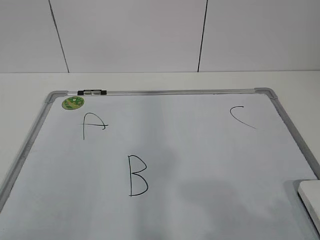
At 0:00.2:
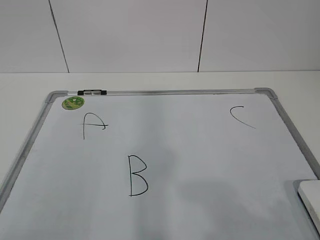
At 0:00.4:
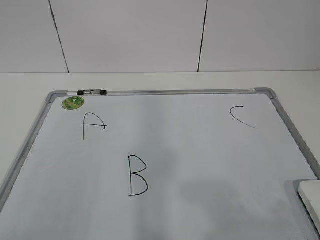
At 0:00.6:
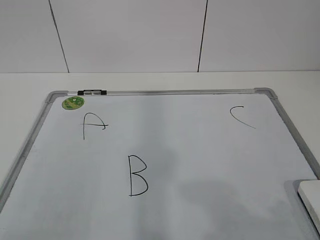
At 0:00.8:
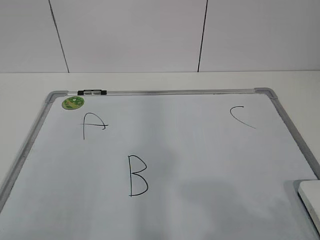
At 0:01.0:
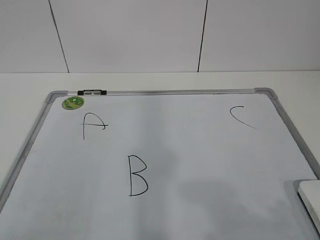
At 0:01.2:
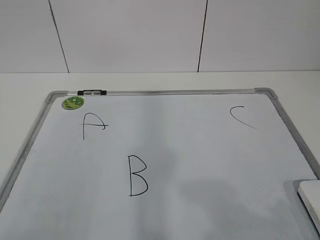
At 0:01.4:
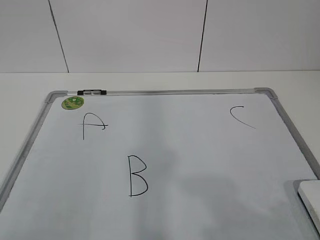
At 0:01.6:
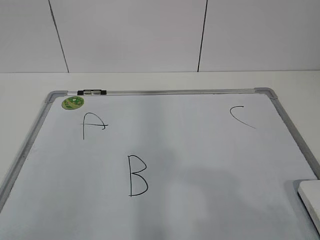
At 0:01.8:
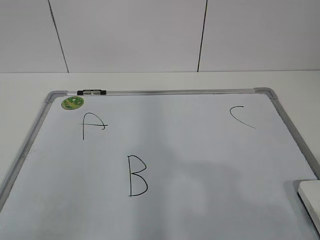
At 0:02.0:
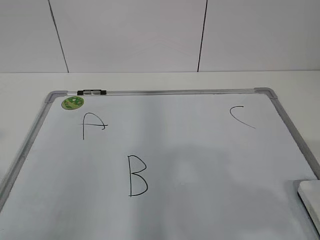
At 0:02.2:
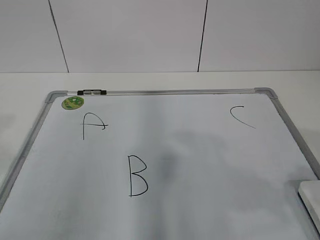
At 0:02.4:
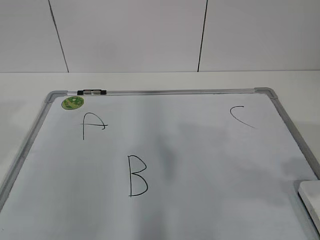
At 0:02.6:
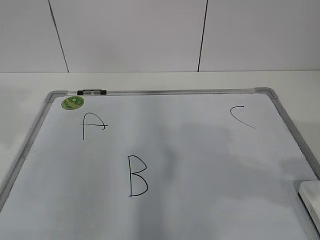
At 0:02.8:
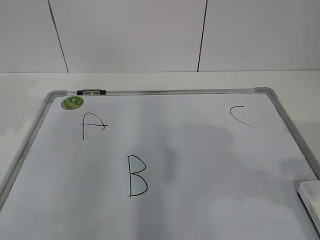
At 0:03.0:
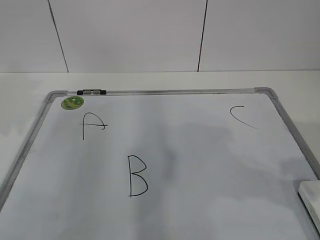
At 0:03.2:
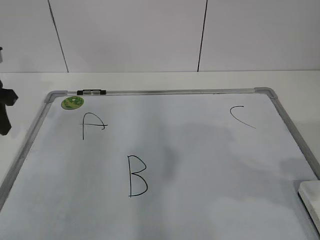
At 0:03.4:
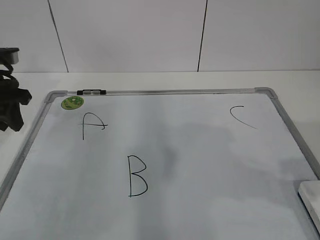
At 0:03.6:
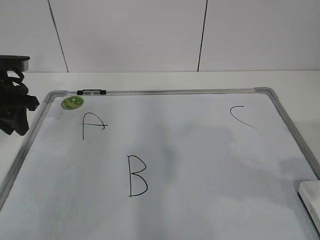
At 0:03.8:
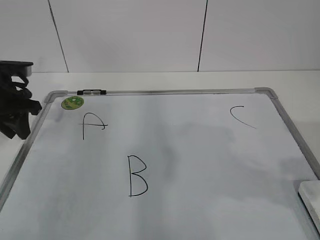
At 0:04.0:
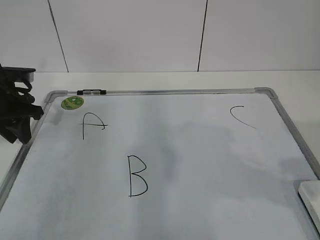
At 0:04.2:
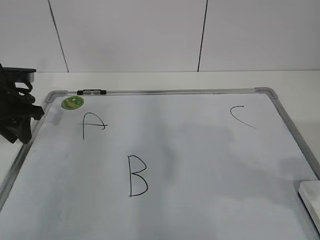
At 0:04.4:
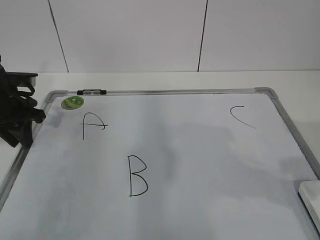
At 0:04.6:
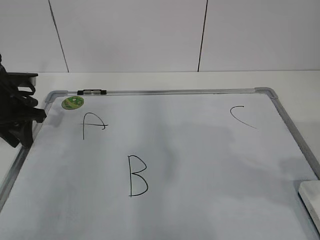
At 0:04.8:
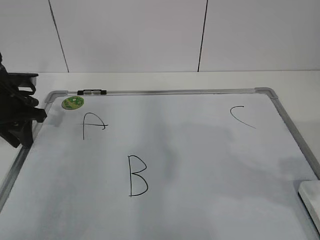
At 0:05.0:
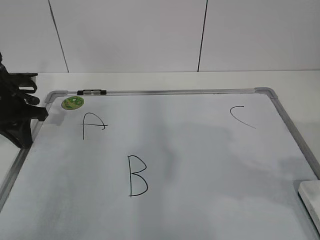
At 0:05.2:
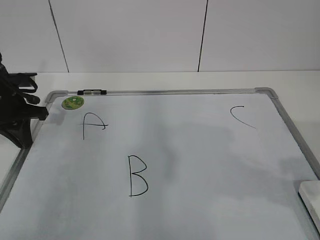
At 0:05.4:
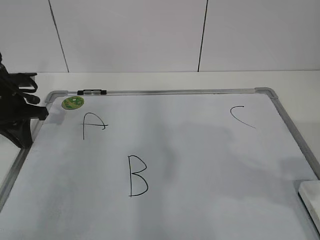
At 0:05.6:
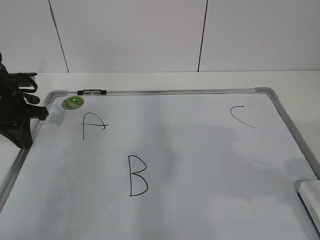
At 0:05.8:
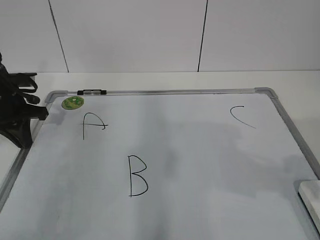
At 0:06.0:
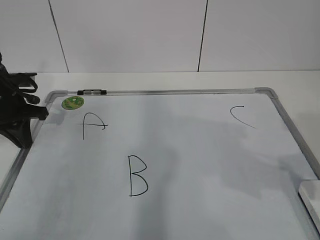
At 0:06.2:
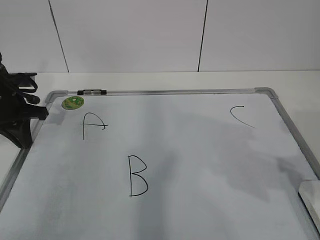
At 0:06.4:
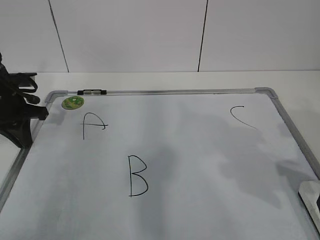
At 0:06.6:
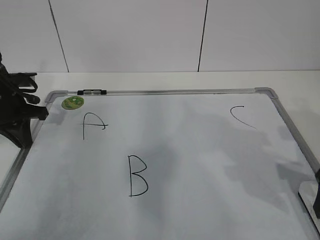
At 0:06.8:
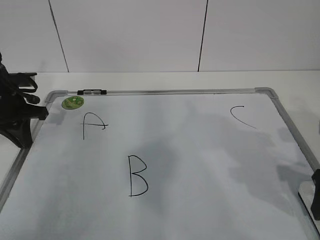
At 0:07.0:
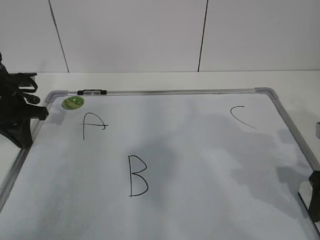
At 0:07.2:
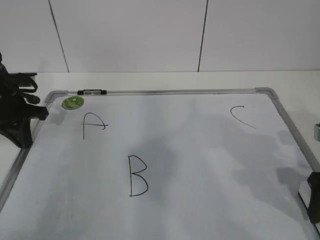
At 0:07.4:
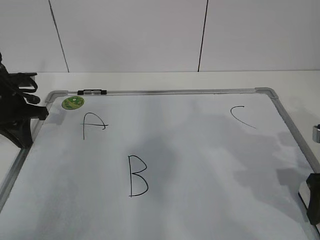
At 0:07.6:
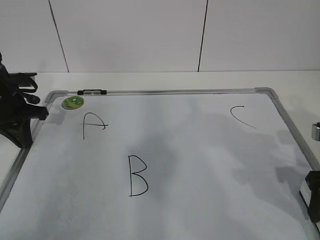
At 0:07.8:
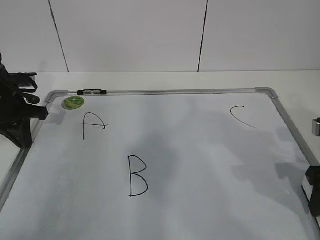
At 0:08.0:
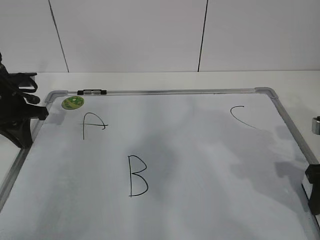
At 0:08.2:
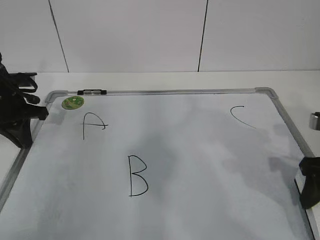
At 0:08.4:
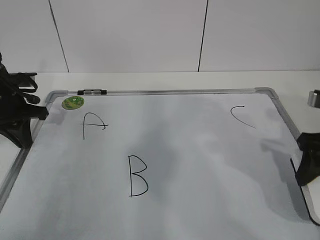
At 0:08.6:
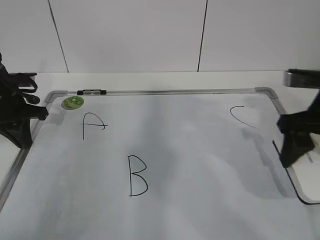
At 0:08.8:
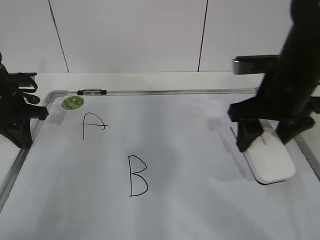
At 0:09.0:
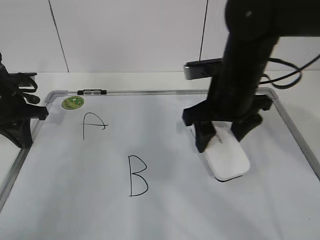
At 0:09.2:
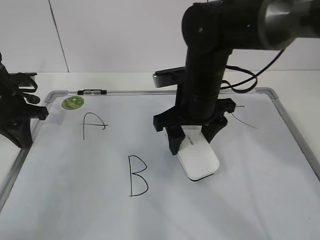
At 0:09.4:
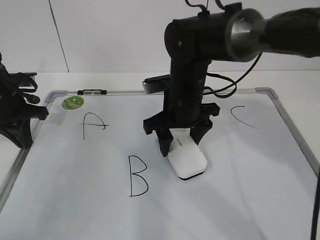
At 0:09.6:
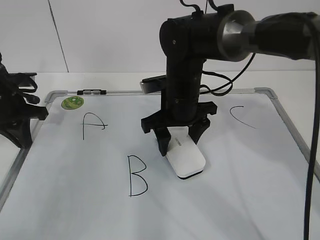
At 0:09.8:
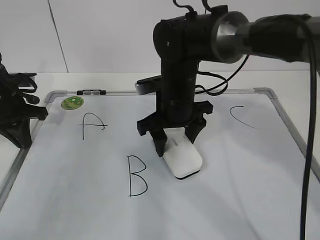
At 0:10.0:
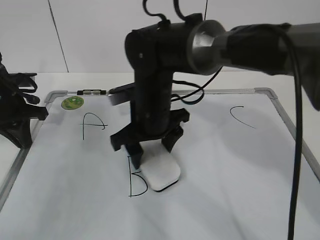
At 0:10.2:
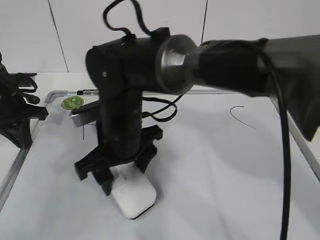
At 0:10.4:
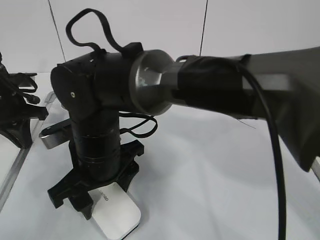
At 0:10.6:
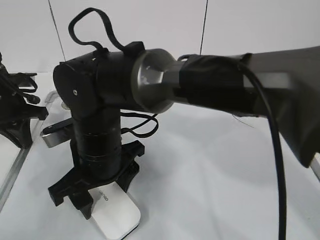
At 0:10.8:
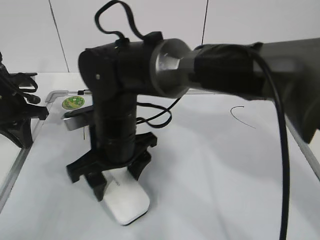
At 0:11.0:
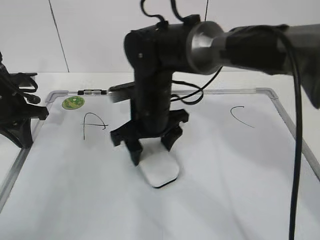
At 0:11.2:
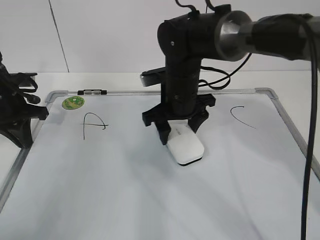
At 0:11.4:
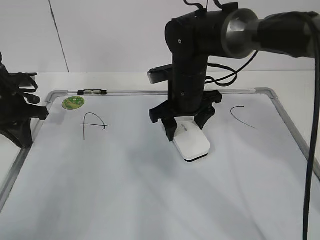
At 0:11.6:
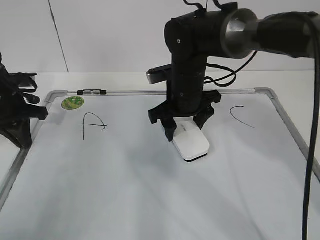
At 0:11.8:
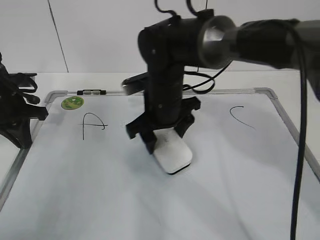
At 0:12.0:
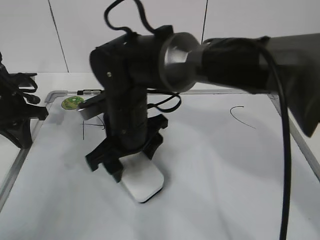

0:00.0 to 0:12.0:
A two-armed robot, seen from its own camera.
Task of the whole recording: pick up the eraser on the blackboard and erase the letter "B".
Step, 0:00.0 to 0:04.0: Hold the drawing board steady with your left hand.
Step, 0:04.2 to 0:06.0: Grab the eraser with your right hand.
Step, 0:06.4 to 0:10.2: Erase the letter B with your right hand.
0:01.6 to 0:03.0: The left gripper is displaced forward by some 30 cm.
0:03.0 to 0:04.4: The left gripper moves downward and forward, some 10 cm.
0:04.4 to 0:06.0: The left gripper closes.
0:06.0 to 0:07.6: The right gripper travels downward and forward by roughly 10 cm, and closes.
0:07.6 to 0:09.0: The right gripper goes about 20 cm to the left and forward, and closes up.
0:09.0 to 0:10.4: The right gripper goes some 20 cm to the left.
0:10.4 to 0:12.0: The right gripper reaches roughly 15 cm to the right, then returns.

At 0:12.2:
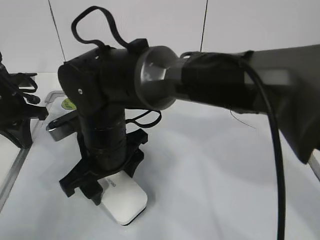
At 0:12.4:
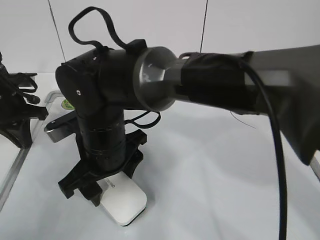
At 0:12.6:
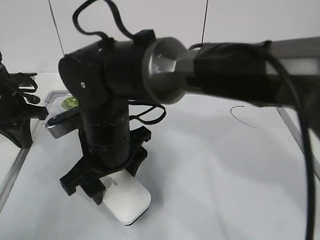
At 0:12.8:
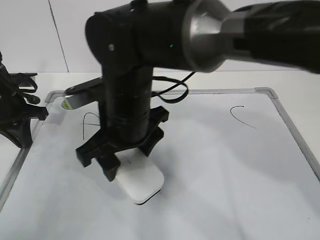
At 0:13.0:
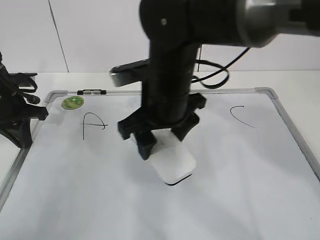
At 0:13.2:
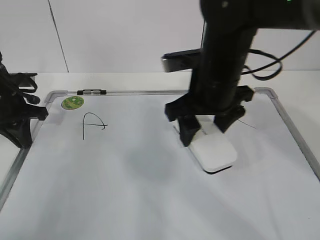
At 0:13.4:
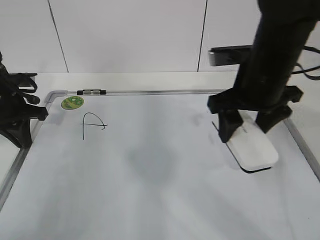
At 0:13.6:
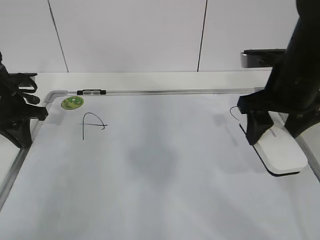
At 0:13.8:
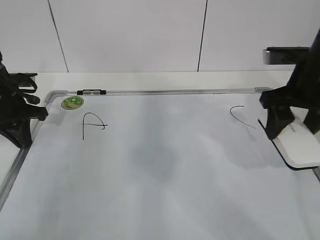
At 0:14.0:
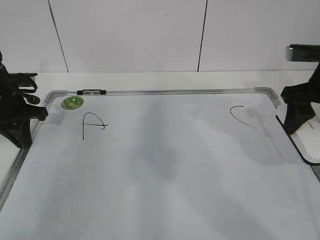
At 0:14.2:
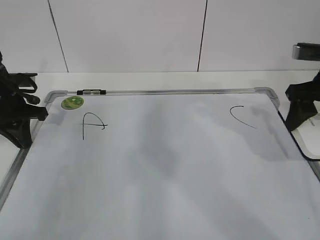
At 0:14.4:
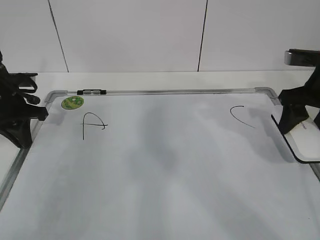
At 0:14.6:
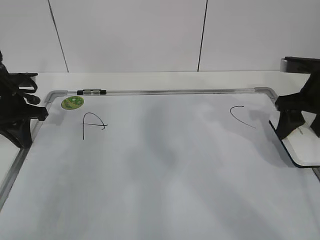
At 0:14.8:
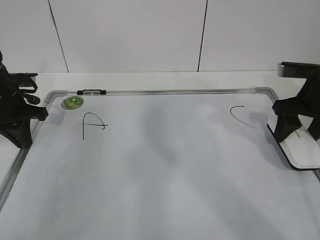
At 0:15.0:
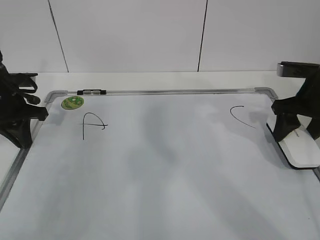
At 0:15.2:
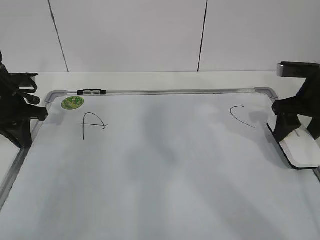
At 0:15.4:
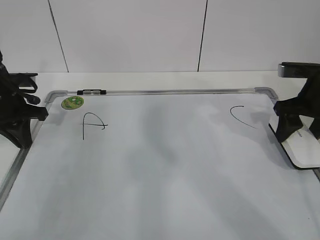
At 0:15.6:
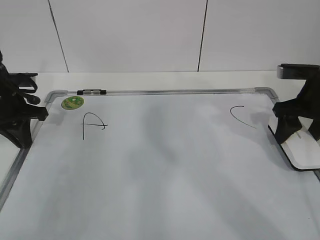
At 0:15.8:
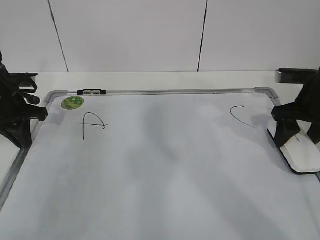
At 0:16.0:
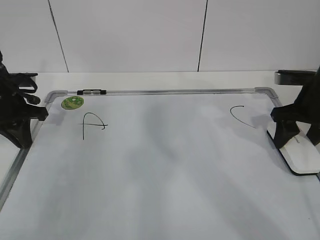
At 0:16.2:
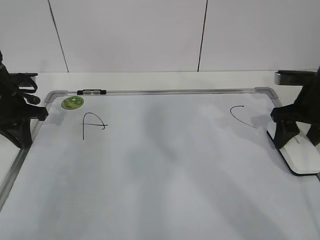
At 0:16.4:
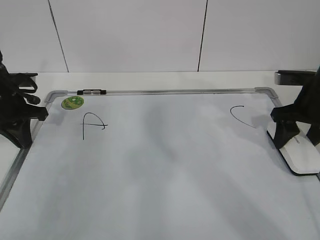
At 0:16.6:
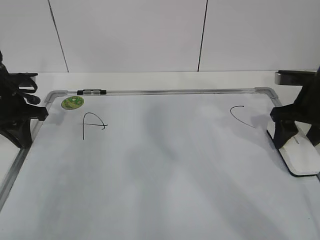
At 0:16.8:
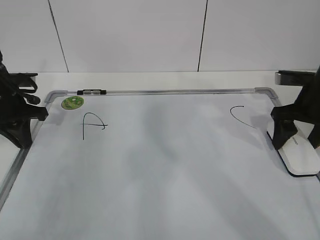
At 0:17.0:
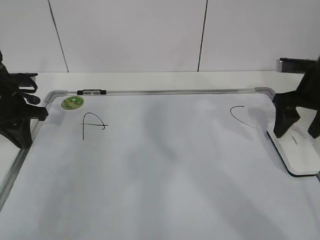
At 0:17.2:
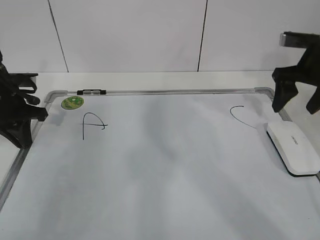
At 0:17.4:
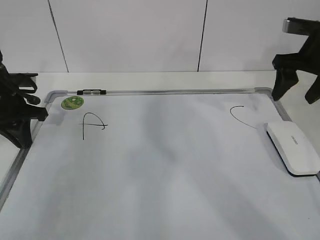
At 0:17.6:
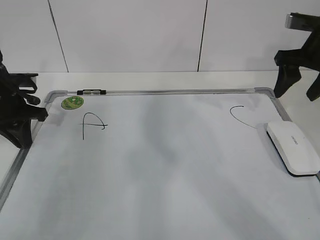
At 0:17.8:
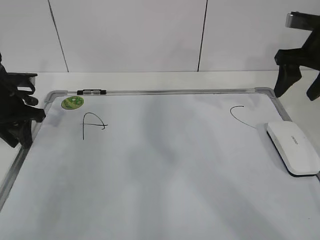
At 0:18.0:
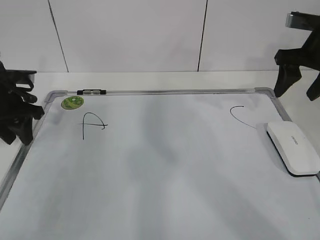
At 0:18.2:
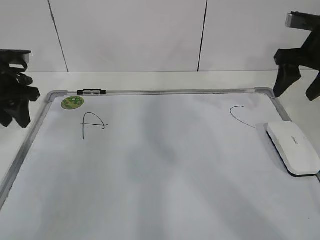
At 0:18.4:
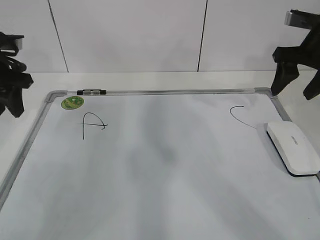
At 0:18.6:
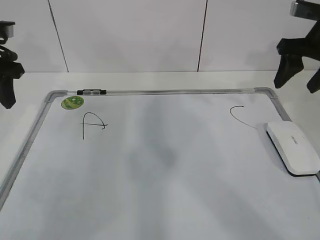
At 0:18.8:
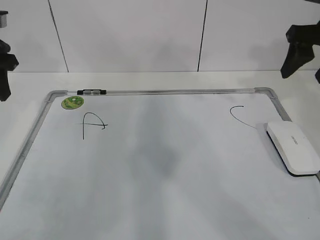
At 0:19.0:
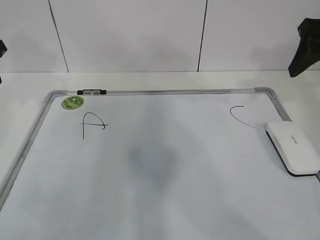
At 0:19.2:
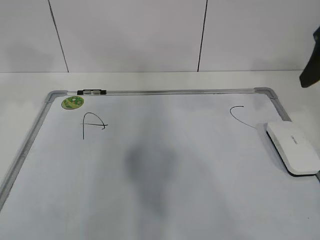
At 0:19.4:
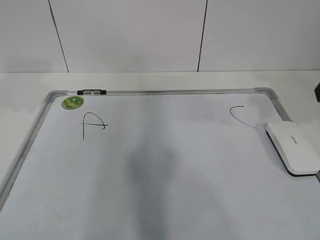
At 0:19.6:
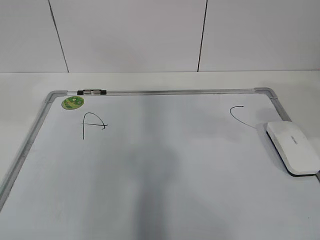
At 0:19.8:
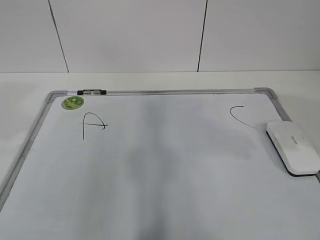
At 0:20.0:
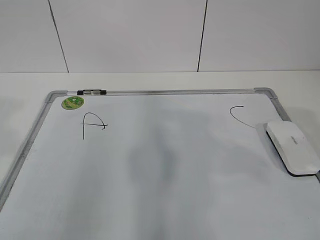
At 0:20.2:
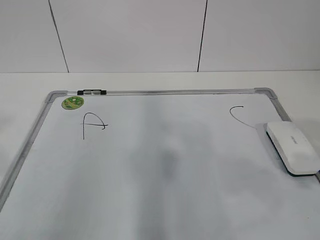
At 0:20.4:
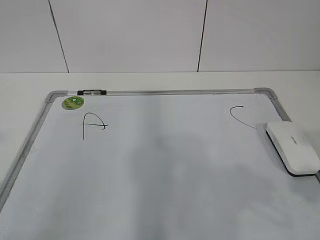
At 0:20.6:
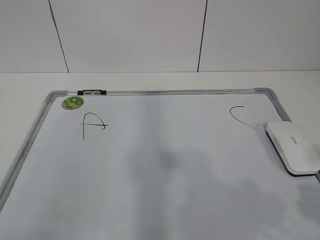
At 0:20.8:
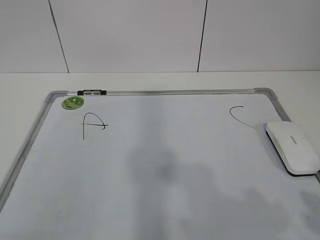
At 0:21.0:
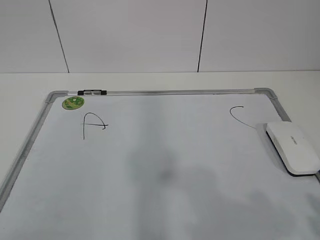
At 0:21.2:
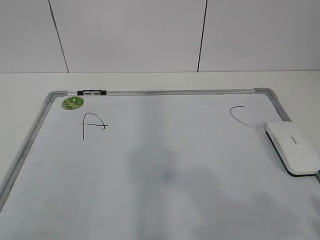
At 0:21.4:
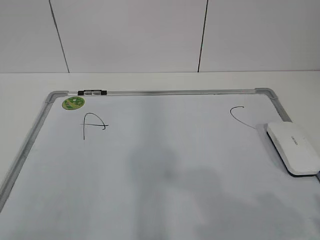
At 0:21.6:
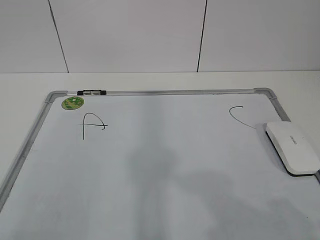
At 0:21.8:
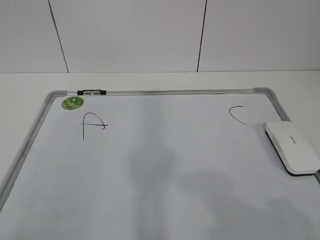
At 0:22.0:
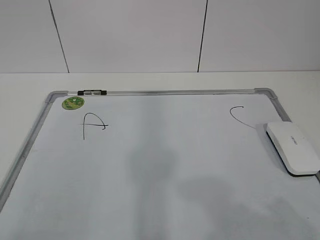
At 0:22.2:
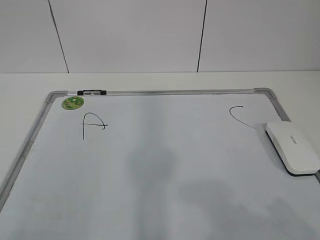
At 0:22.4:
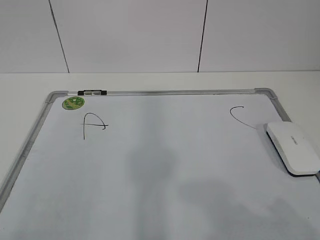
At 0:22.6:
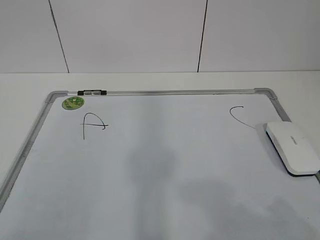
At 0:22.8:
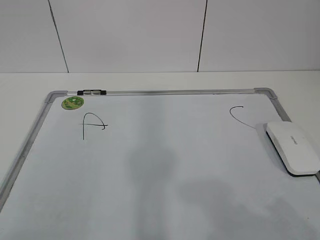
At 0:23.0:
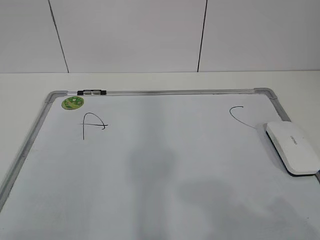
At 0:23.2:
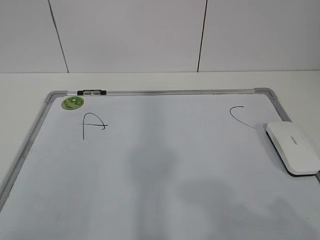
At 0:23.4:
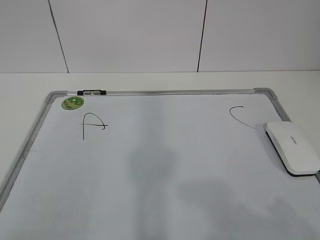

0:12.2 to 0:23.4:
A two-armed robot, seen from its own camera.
Task of the whole recording: pick up the eraser on the blackboard and erase the letter "B".
0:12.2 to 0:13.8: The right gripper moves to the right, roughly 30 cm.
0:13.8 to 0:15.4: The right gripper heads to the right, covering some 5 cm.
0:15.4 to 0:17.0: The right gripper opens up.
0:17.0 to 0:18.6: The two grippers go about 10 cm upward. The right gripper closes; the left gripper opens its fingers.
0:18.6 to 0:20.2: Both grippers move backward, approximately 30 cm.
0:20.2 to 0:21.8: The right gripper moves backward, approximately 10 cm.
